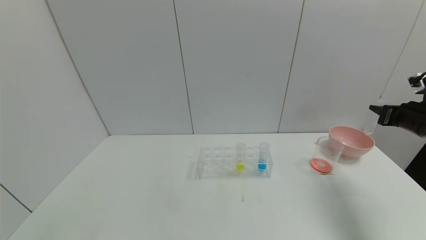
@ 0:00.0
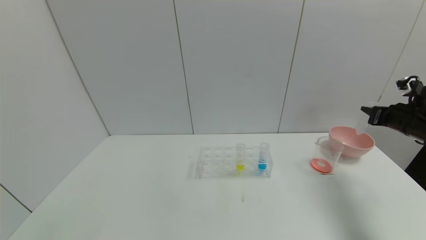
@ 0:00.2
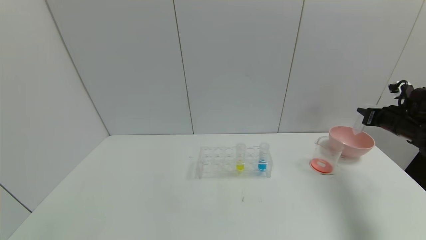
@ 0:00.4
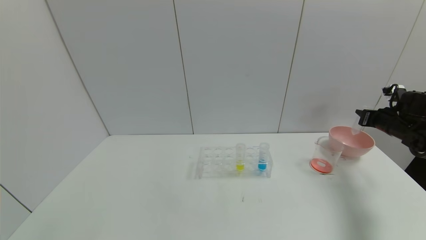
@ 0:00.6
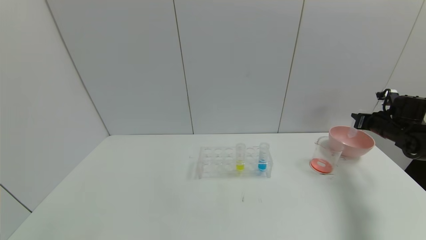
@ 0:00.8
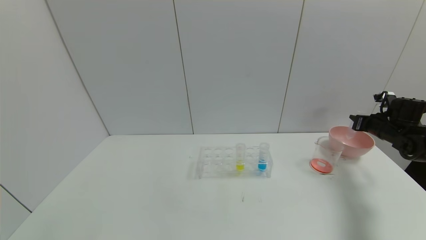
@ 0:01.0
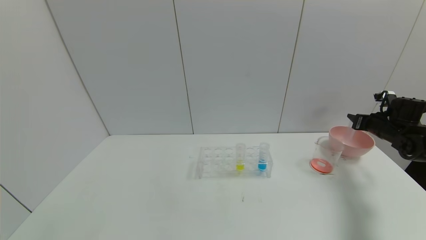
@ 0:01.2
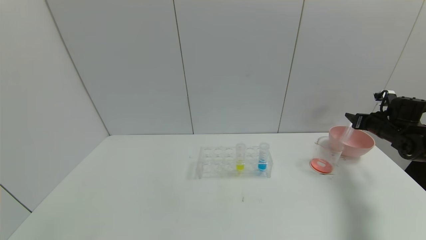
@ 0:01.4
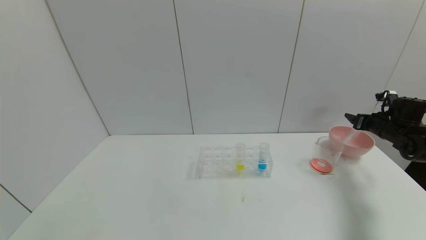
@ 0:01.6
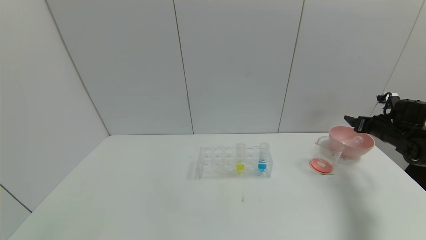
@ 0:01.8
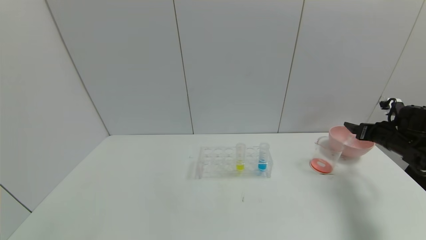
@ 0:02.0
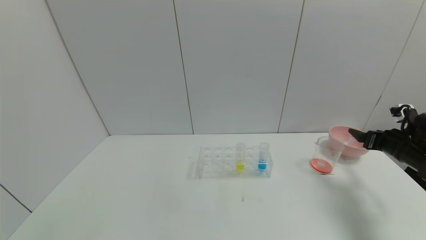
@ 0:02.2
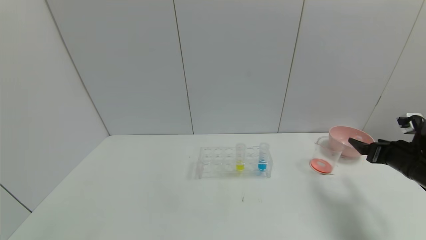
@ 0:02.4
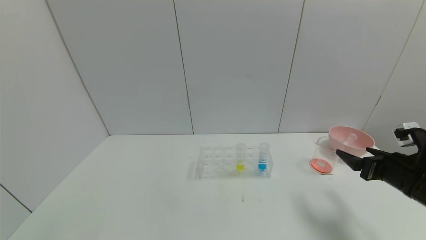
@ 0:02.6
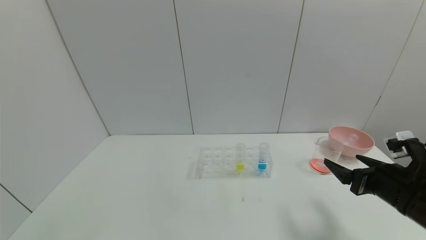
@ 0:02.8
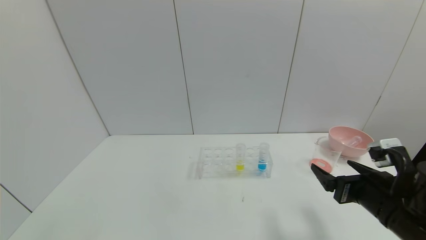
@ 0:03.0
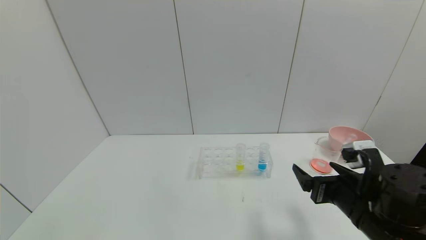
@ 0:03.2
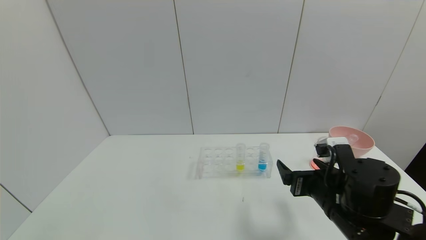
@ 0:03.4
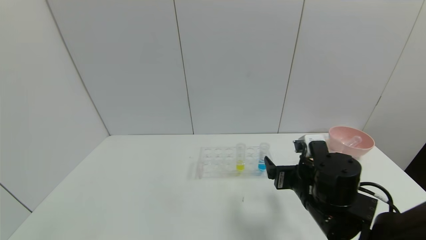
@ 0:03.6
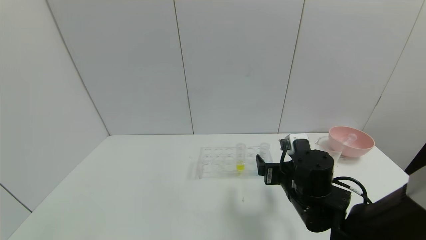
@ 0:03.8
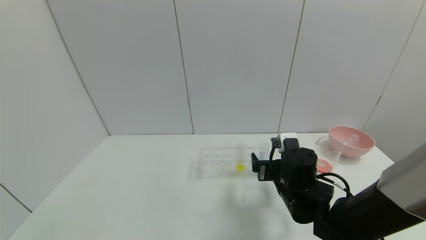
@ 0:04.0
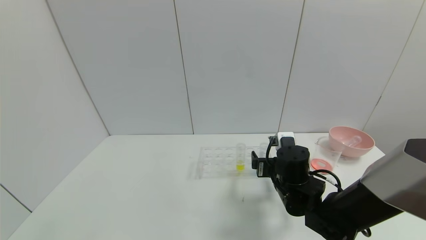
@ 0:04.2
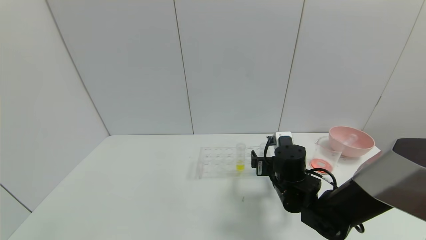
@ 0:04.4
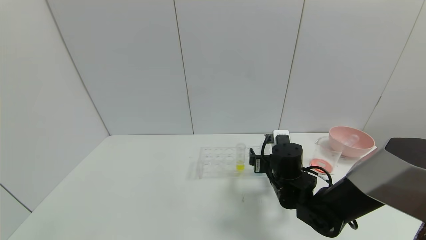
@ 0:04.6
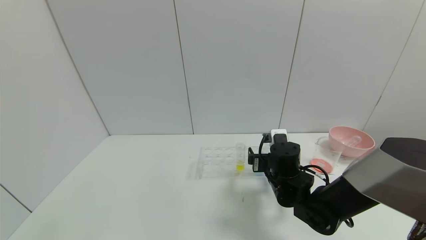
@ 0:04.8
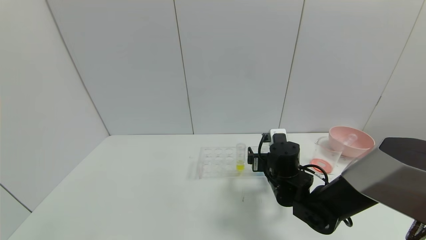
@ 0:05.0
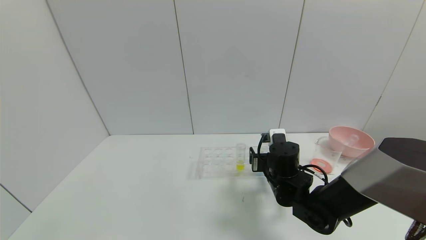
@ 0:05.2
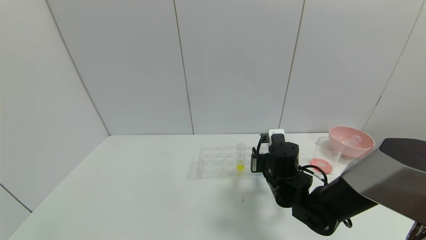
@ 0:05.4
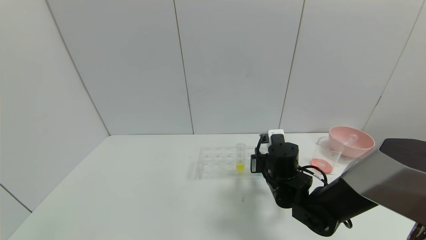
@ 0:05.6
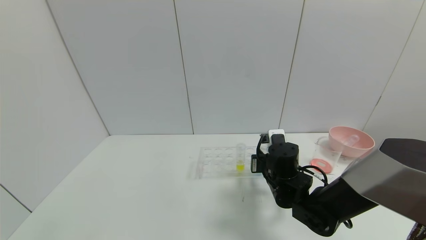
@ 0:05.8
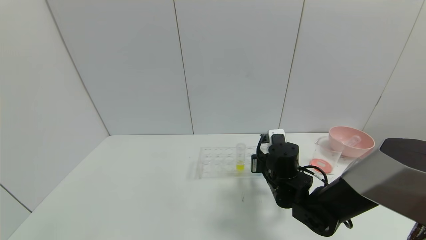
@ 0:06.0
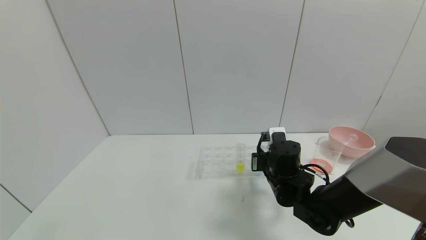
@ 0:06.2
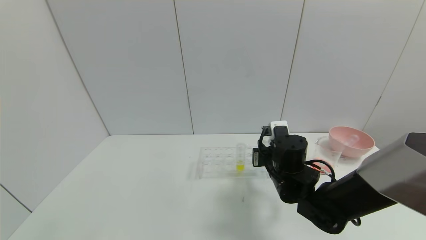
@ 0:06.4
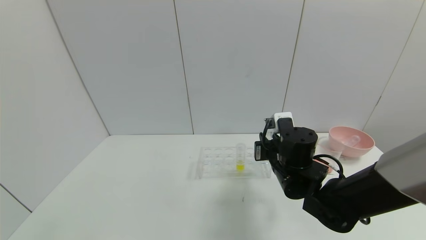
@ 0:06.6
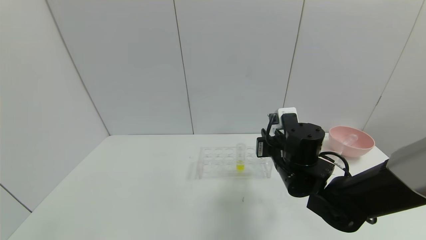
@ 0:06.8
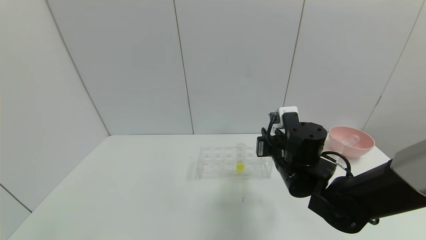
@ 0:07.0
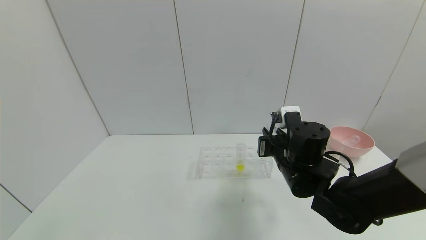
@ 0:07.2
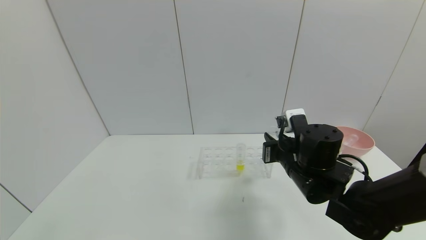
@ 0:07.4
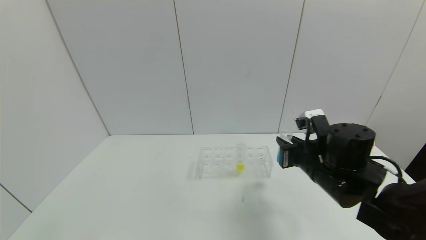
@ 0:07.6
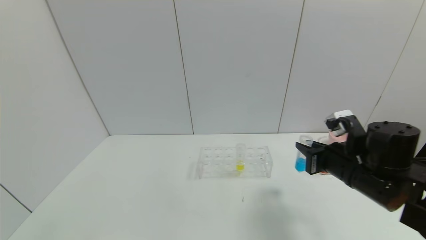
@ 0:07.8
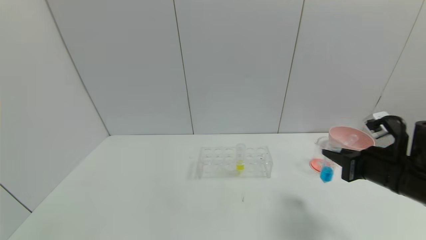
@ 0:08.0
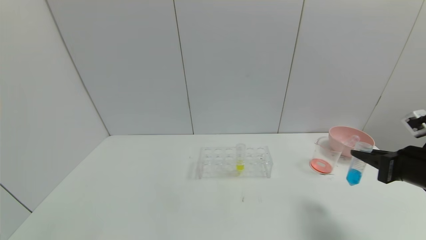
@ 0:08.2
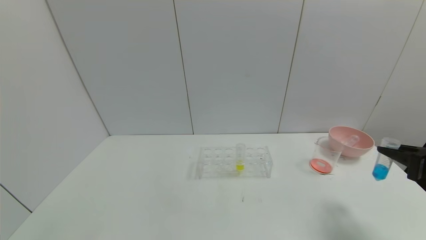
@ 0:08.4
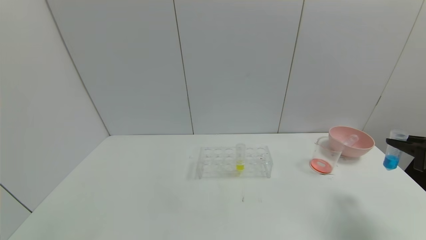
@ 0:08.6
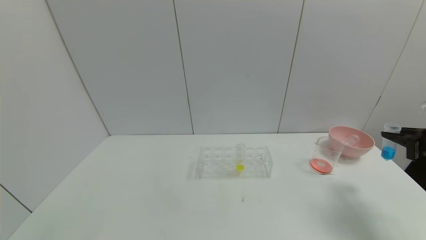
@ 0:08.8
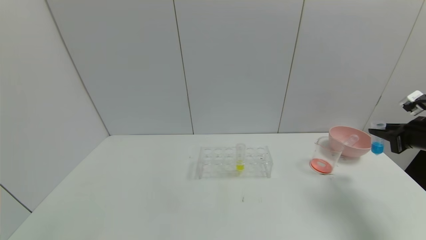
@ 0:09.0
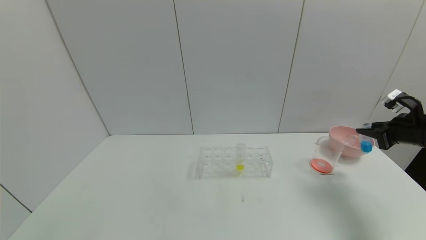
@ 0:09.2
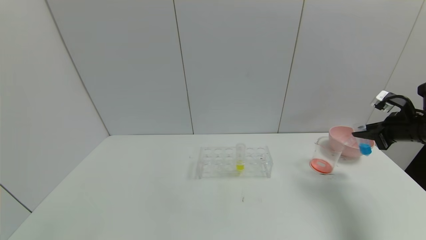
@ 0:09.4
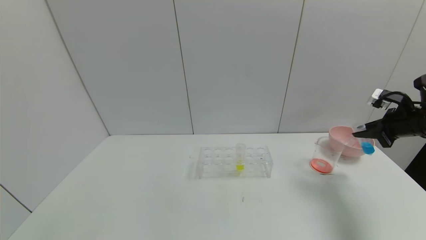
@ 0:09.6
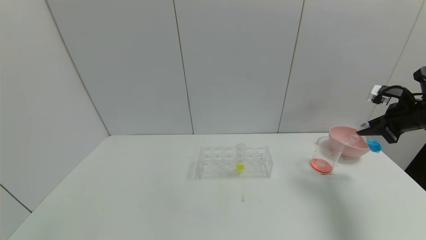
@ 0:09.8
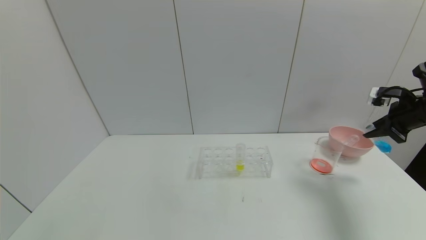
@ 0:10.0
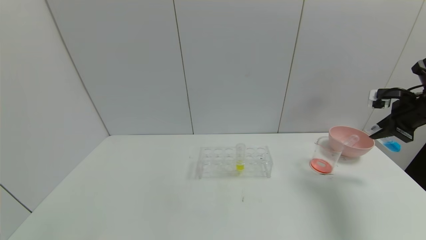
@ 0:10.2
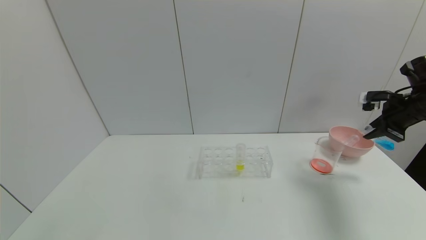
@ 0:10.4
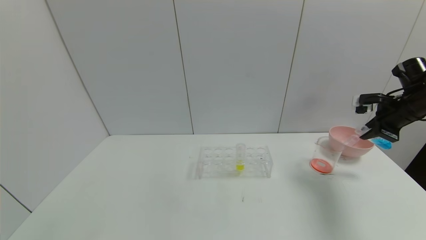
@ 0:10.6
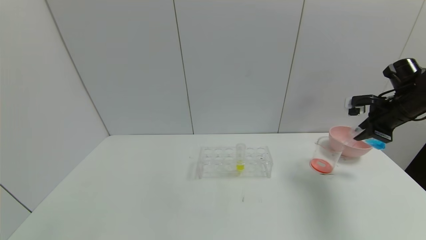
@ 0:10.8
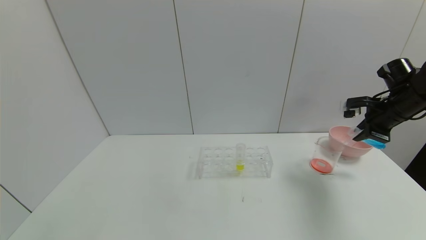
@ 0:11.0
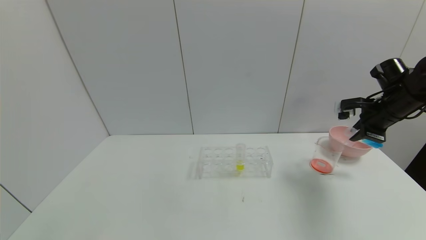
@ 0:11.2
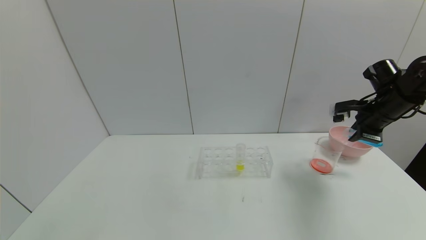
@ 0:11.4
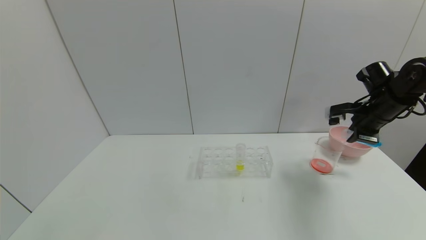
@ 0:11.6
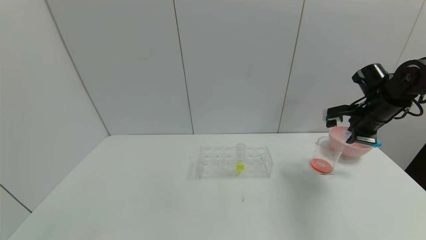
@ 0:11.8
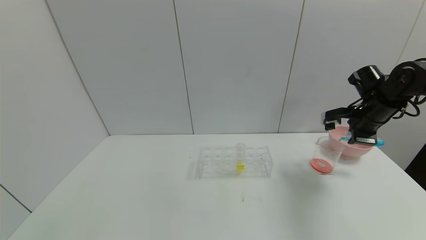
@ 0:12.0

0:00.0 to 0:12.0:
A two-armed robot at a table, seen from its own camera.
Task of the whole recording: pick up the test tube with red pigment and the test tube with blue pigment by grippers and pour them into the container.
Step, 0:00.0 to 0:03.0: Place the test tube into the bowl with right gripper.
Step, 0:03.2 to 0:07.8: Pick up the test tube containing the blue reagent with right gripper.
0:00.0 to 0:01.6: The right gripper travels forward and downward by approximately 10 cm, and opens.
0:01.6 to 0:03.0: The right gripper goes about 30 cm backward and to the left.
0:03.0 to 0:04.4: The right gripper moves to the left, forward and downward, some 20 cm.
0:04.4 to 0:06.0: The right gripper closes.
0:06.0 to 0:07.6: The right gripper travels to the right and upward by approximately 10 cm.
0:07.6 to 0:09.0: The right gripper moves to the right, approximately 25 cm.
0:09.0 to 0:10.4: The right gripper travels forward and upward by about 10 cm.
0:10.4 to 0:12.0: The right gripper shifts roughly 10 cm to the left.

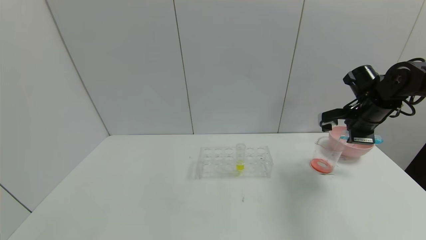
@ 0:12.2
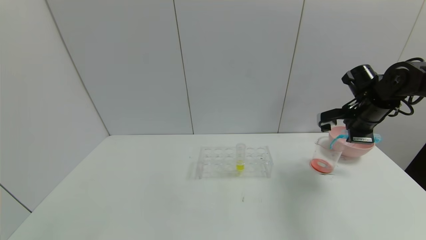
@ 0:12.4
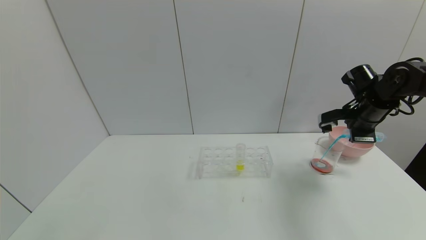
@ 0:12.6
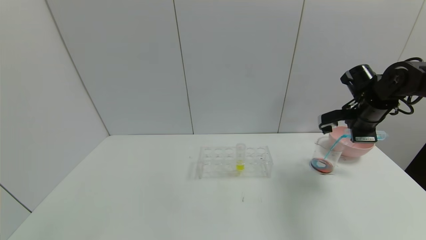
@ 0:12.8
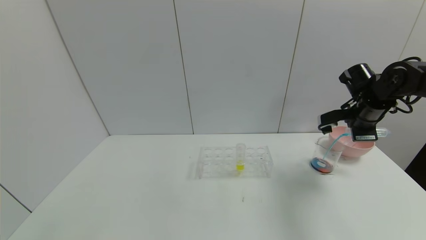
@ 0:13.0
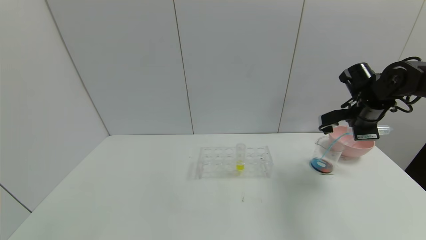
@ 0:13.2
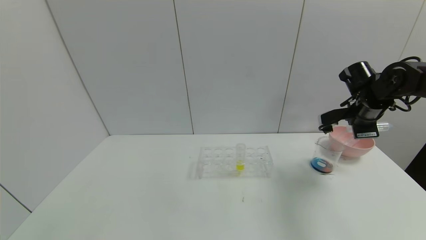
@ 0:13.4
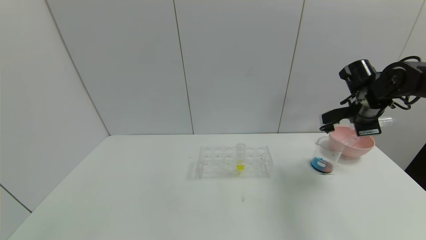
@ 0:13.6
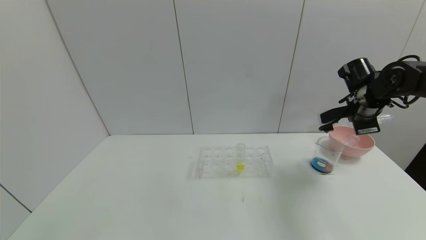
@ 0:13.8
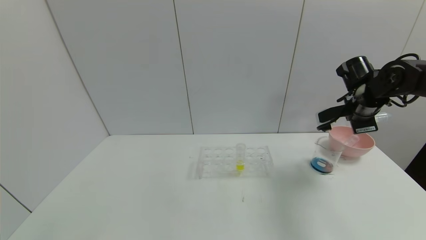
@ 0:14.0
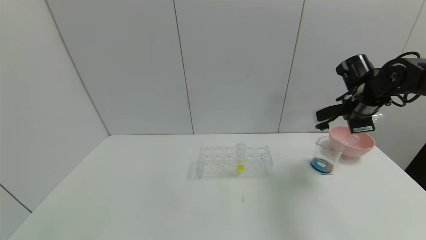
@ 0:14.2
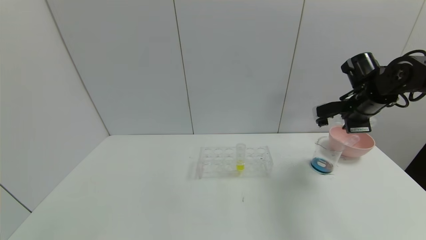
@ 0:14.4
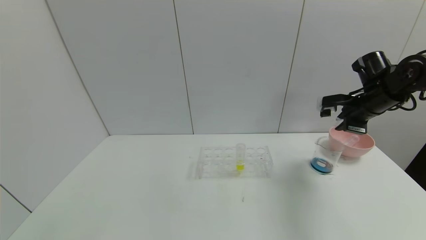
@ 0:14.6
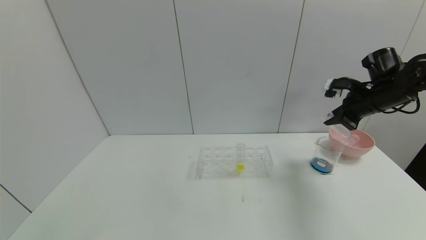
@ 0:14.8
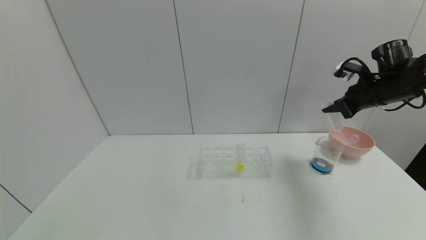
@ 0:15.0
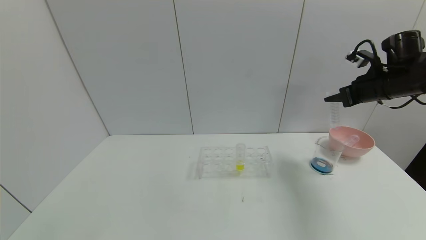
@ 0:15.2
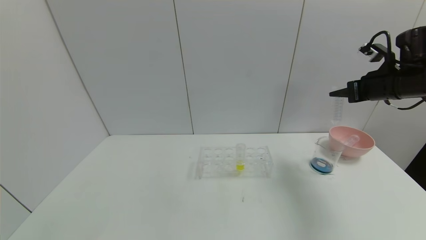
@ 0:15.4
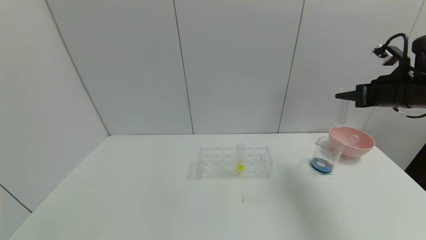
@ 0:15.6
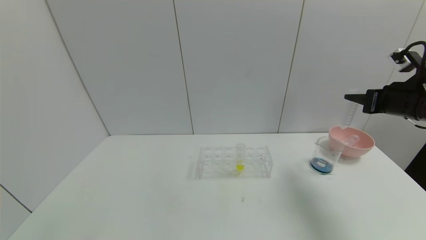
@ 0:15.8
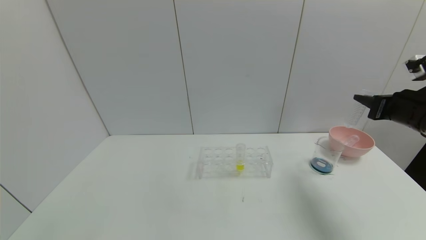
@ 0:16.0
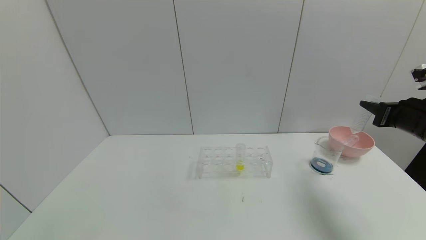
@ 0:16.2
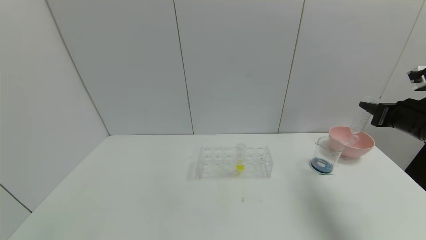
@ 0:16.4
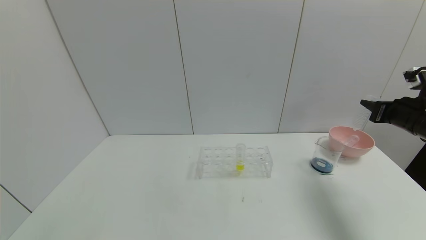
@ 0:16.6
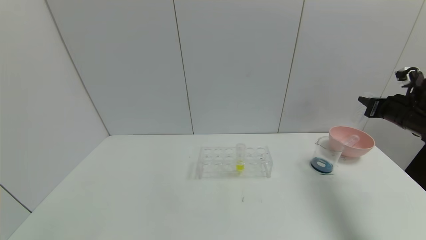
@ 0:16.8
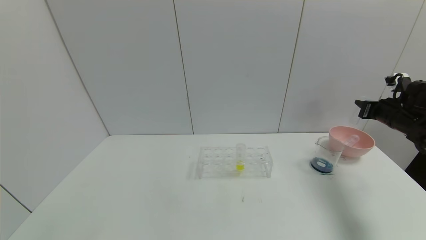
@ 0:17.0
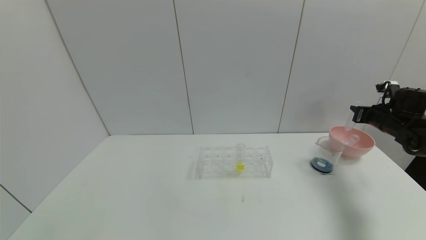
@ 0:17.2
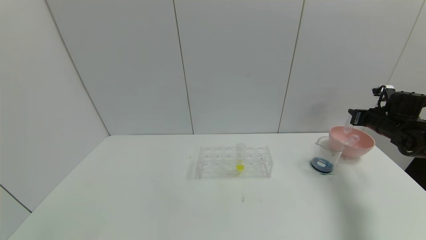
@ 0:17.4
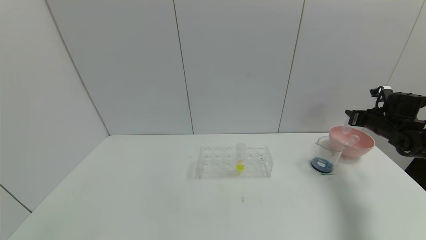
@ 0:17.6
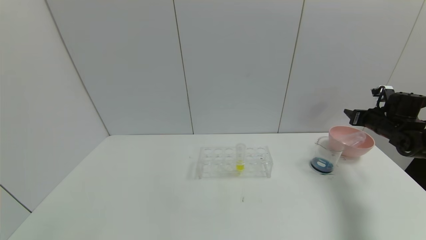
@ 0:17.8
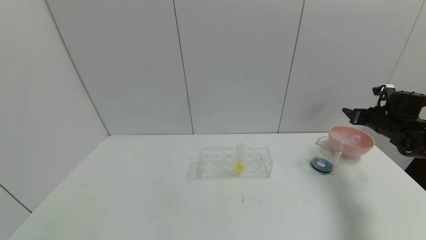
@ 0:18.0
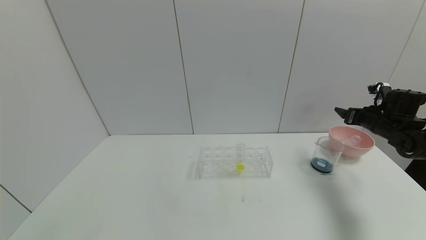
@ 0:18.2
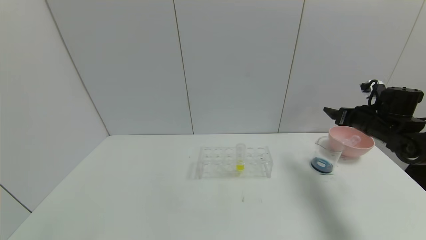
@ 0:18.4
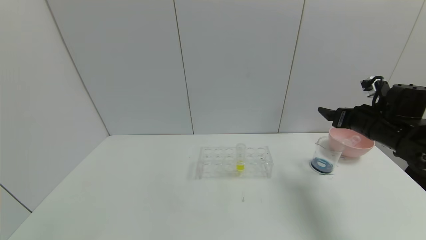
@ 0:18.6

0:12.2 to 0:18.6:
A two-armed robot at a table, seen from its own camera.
Task of the whole recording: pick up the test tube with red pigment and the test tube with blue pigment by grippers and pour them into the container.
Step, 0:12.2 to 0:16.4: Pour the blue reagent into the graduated cylinder with right gripper.
0:13.8 to 0:15.4: The right gripper shifts approximately 5 cm upward.
0:15.4 to 0:17.0: The right gripper moves downward and to the right, about 15 cm, and travels backward and back again, approximately 10 cm each way.
0:17.0 to 0:18.6: The right gripper goes approximately 10 cm to the left and backward, and opens up.
